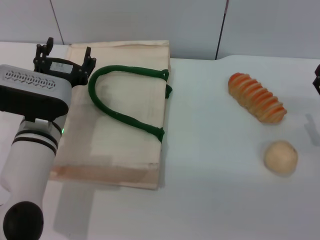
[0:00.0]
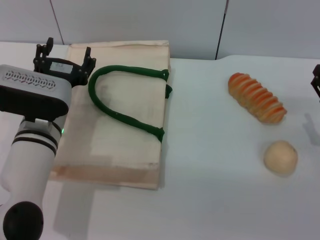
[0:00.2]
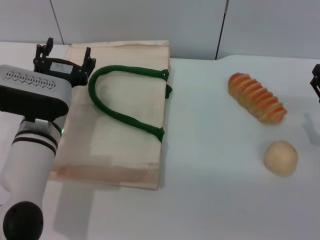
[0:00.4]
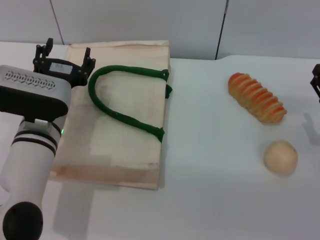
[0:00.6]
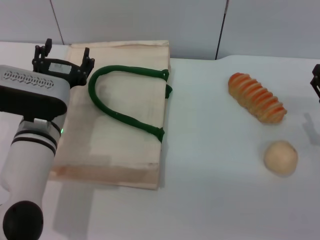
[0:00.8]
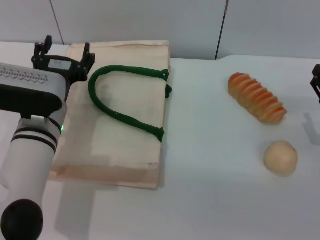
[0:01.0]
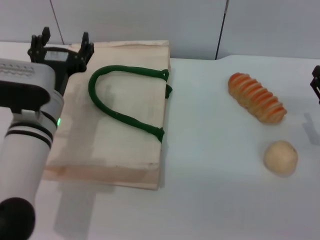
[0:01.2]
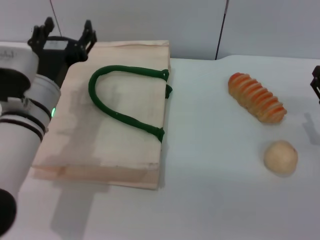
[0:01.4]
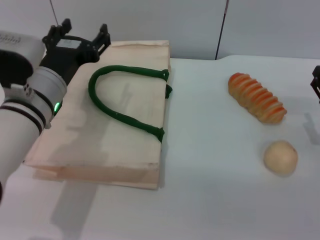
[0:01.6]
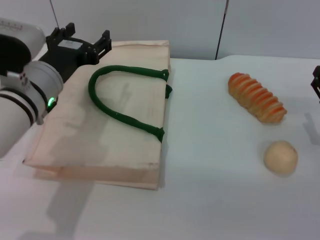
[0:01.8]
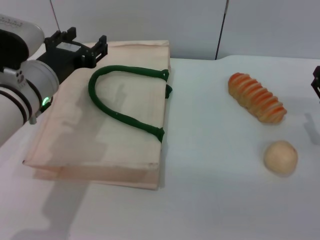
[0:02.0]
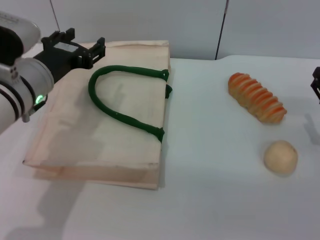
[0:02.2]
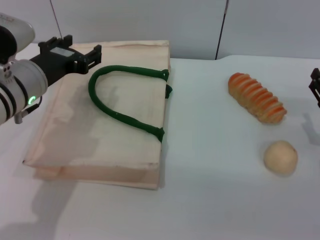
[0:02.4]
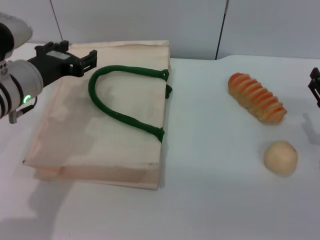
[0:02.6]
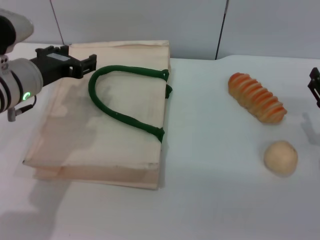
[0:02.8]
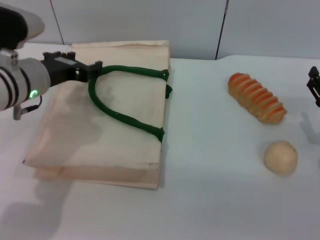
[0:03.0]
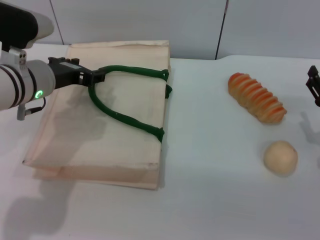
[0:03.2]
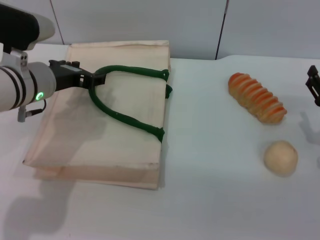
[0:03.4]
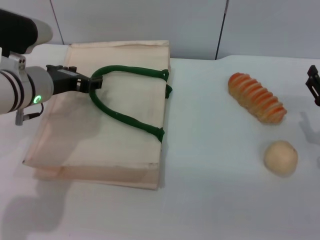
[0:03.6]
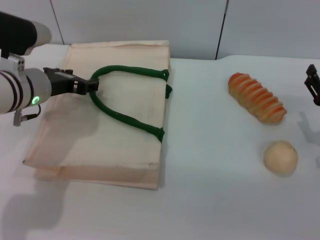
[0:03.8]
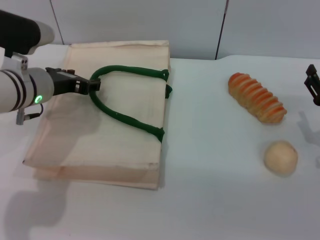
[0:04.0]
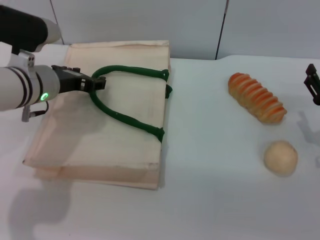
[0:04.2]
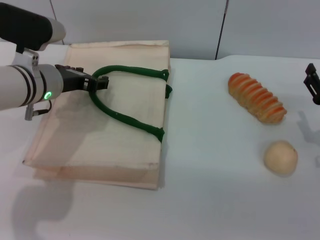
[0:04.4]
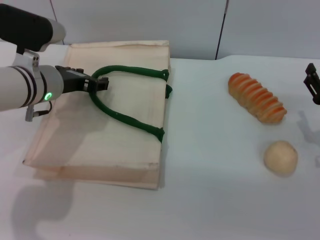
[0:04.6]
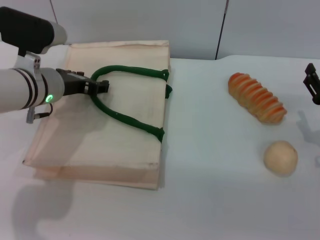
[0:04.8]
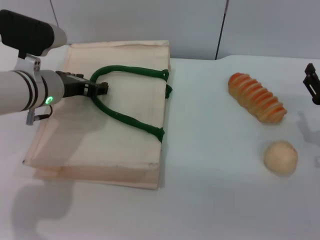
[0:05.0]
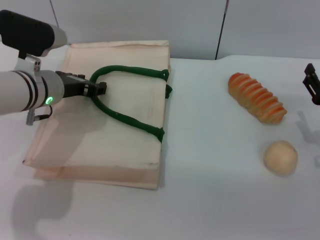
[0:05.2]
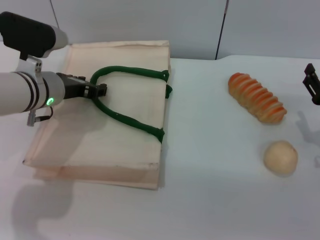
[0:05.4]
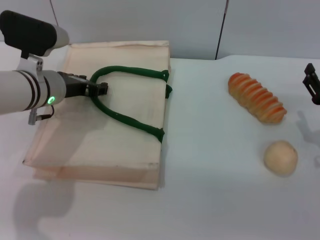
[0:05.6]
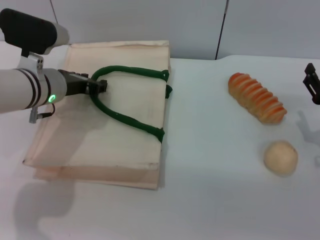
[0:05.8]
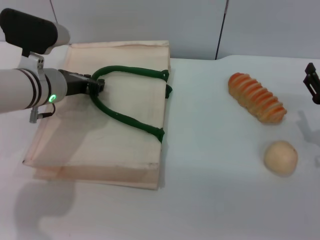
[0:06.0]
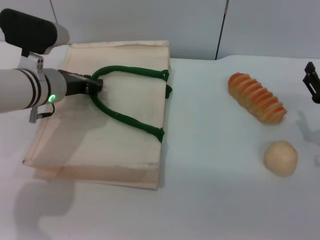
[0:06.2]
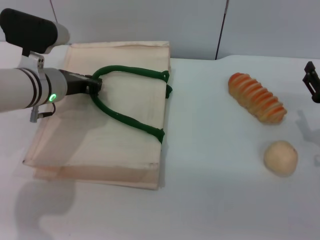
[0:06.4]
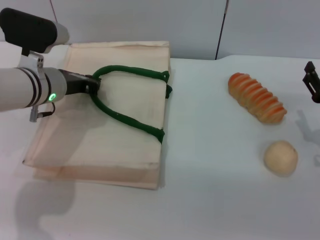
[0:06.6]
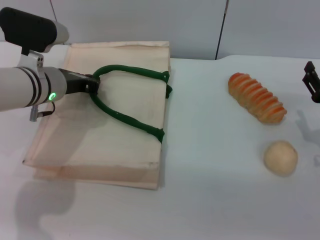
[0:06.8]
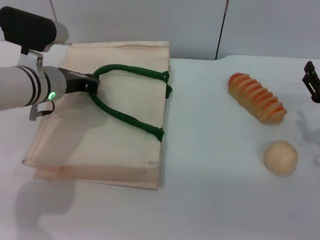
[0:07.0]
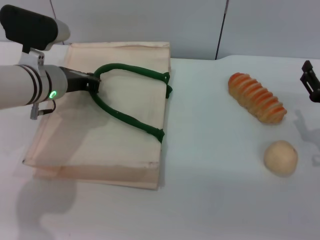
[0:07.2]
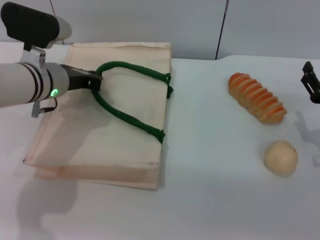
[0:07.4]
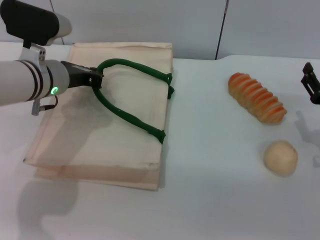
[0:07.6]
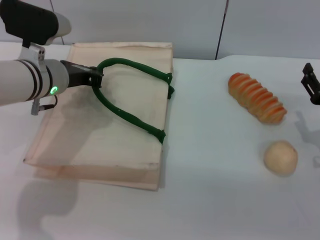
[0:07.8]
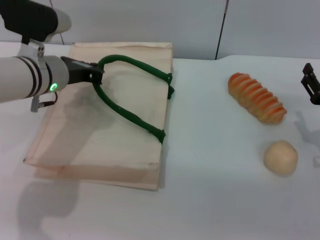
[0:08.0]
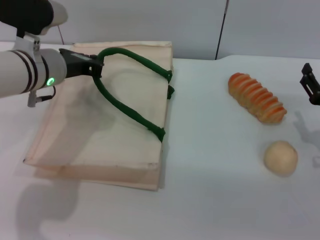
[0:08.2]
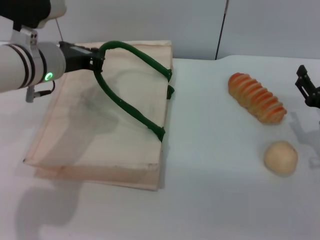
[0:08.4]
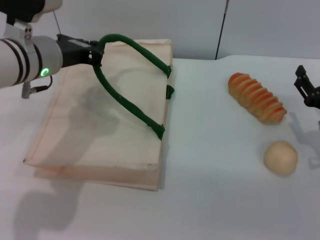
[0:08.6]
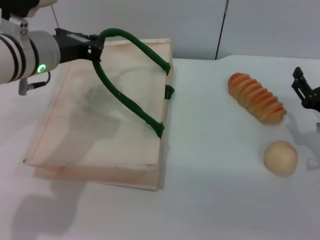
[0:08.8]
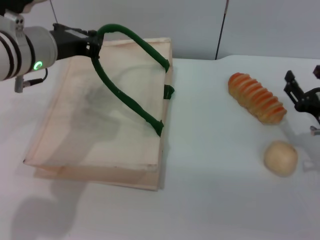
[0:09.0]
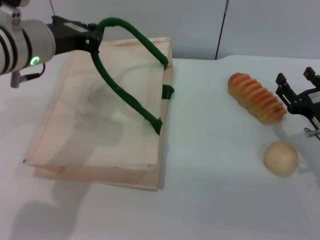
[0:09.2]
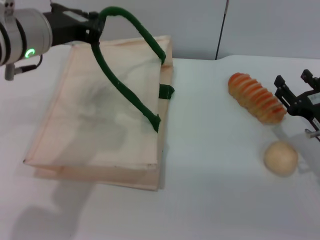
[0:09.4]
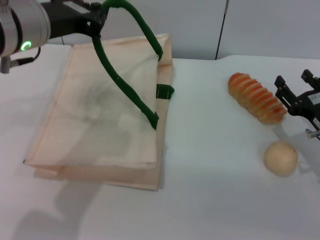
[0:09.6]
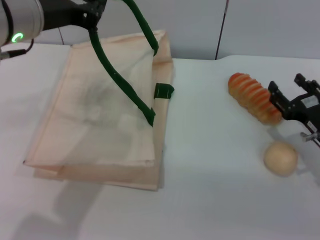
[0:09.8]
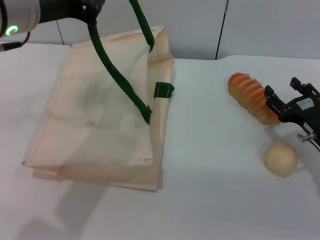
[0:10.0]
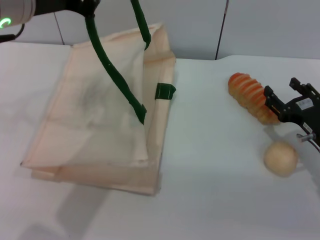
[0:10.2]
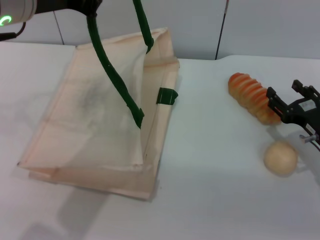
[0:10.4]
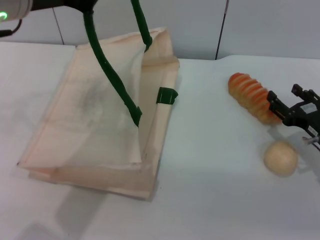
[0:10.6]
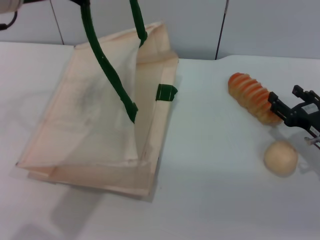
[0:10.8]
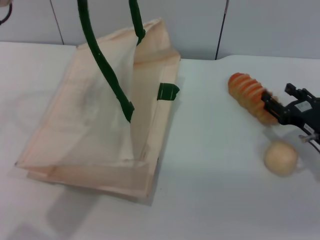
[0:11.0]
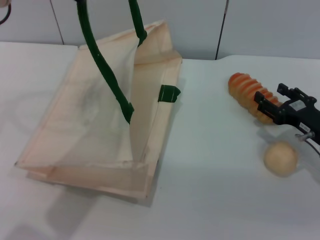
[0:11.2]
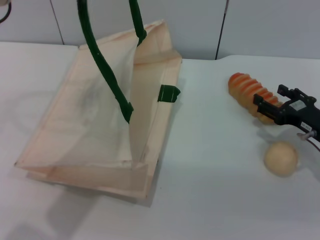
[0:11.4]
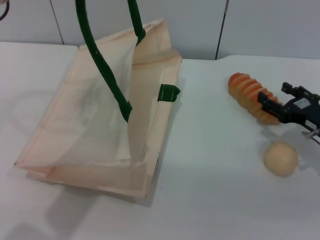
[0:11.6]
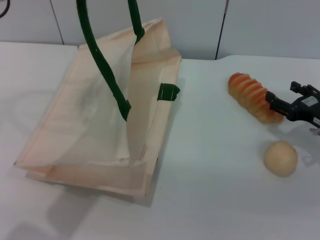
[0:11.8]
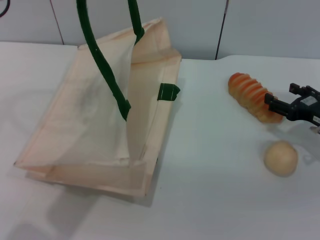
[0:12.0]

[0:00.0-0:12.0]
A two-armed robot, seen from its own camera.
Task of the whole recording: pick up the bread and egg yolk pastry from the table and place it in the white handbag.
Step, 0:00.0 to 0:07.8: Lift the woven bag with the left gripper to open it.
0:00.0 to 0:01.6: The left gripper shifts about 5 cm upward.
0:01.6 to 0:03.0: The left gripper moves some 5 cm.
0:03.0 to 0:04.4: The grippers stay close to where they were, moving slightly.
0:04.4 to 0:06.0: Both grippers stay about where they are.
0:06.0 to 0:07.6: The left gripper closes its fingers.
0:07.6 to 0:09.0: The left gripper is displaced upward by about 5 cm.
0:09.0 to 0:10.4: The left gripper heads upward and backward, covering roughly 10 cm.
0:10.4 to 0:12.0: The right gripper shifts by some 5 cm.

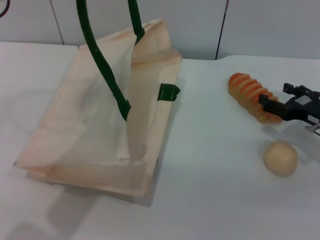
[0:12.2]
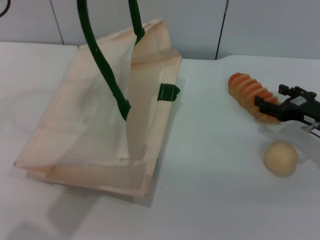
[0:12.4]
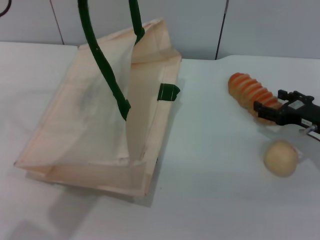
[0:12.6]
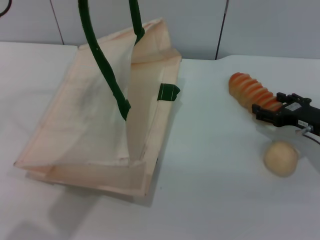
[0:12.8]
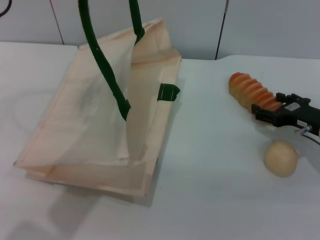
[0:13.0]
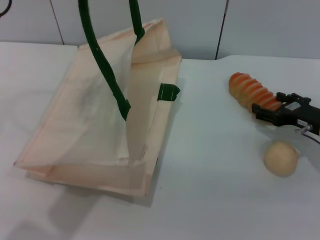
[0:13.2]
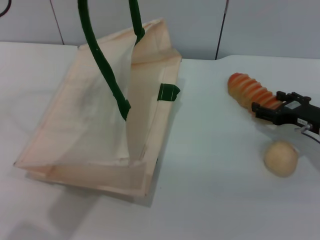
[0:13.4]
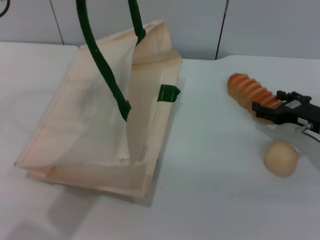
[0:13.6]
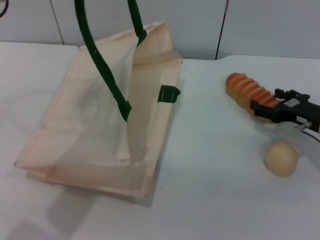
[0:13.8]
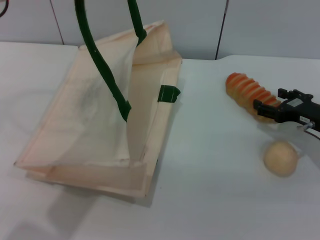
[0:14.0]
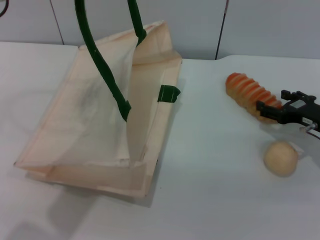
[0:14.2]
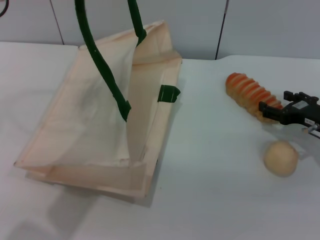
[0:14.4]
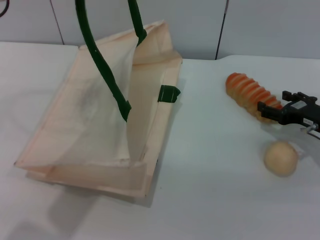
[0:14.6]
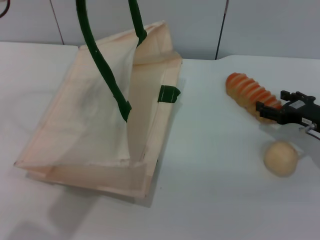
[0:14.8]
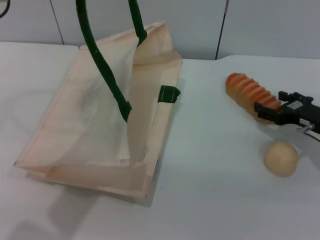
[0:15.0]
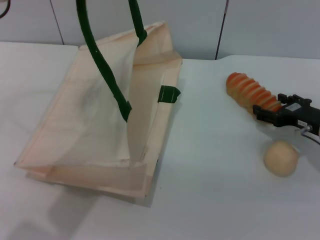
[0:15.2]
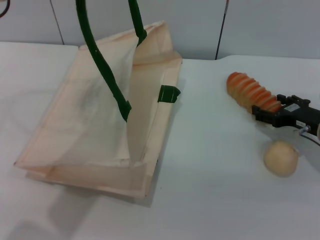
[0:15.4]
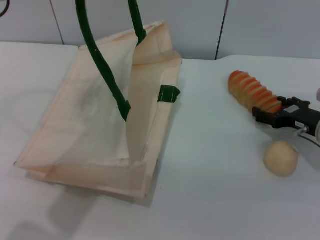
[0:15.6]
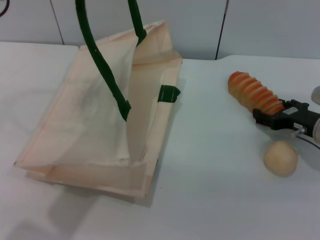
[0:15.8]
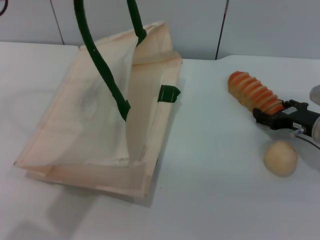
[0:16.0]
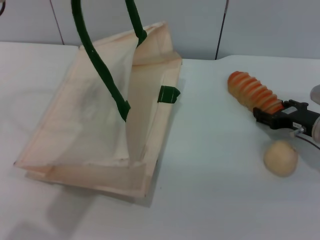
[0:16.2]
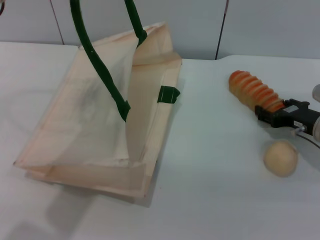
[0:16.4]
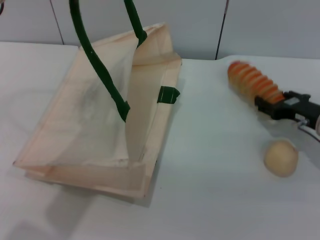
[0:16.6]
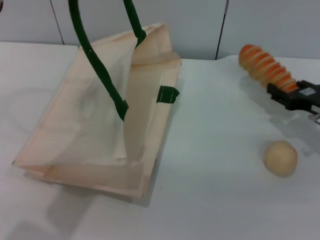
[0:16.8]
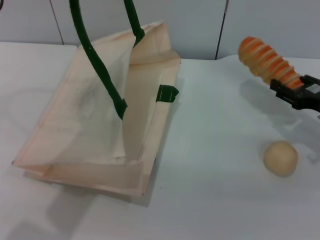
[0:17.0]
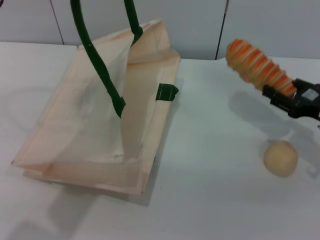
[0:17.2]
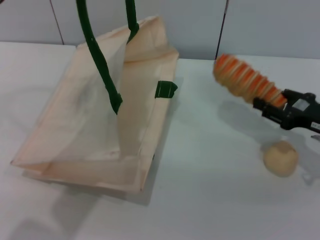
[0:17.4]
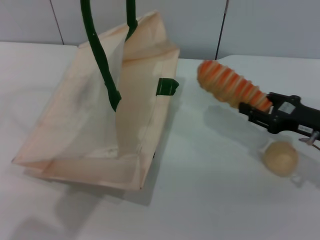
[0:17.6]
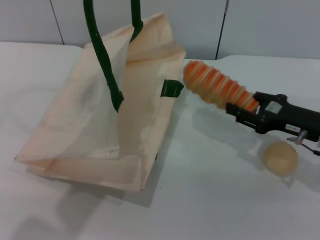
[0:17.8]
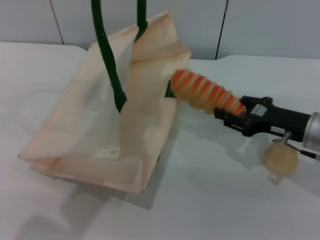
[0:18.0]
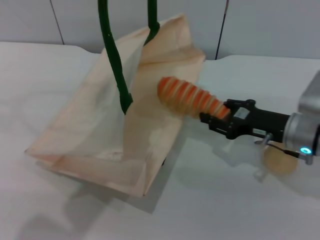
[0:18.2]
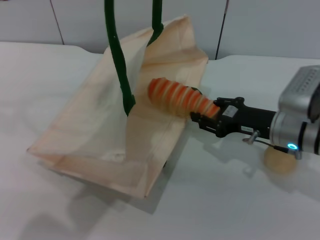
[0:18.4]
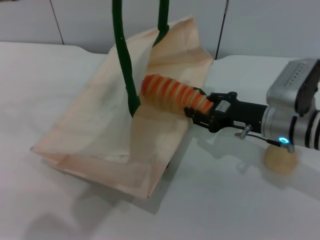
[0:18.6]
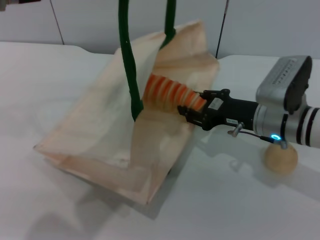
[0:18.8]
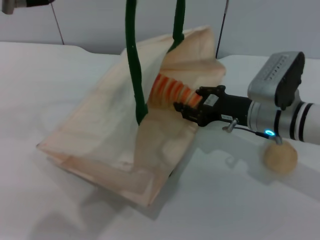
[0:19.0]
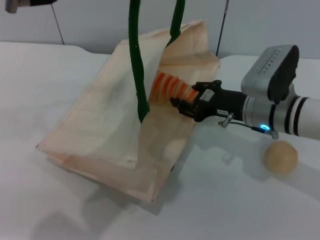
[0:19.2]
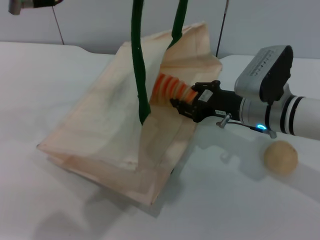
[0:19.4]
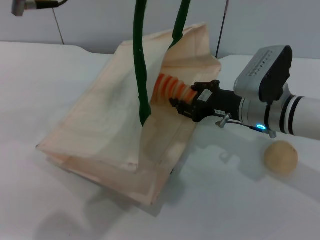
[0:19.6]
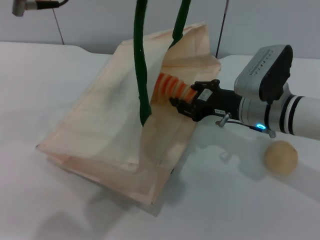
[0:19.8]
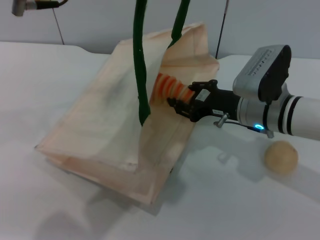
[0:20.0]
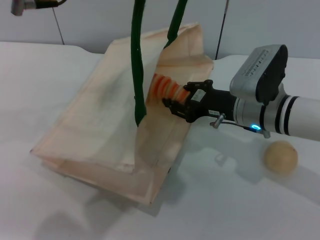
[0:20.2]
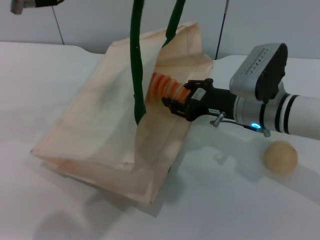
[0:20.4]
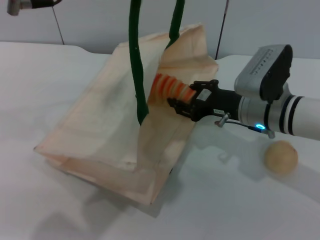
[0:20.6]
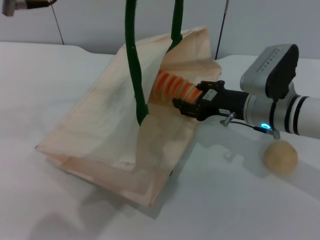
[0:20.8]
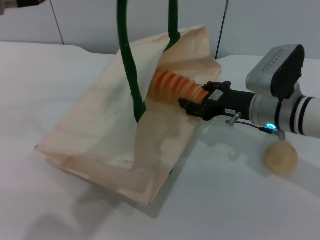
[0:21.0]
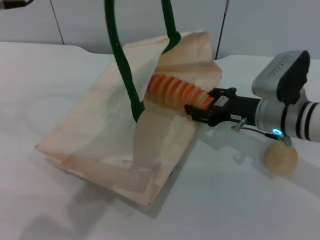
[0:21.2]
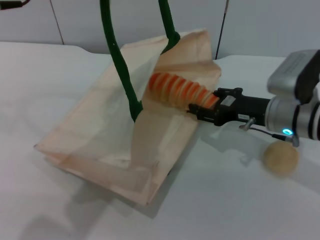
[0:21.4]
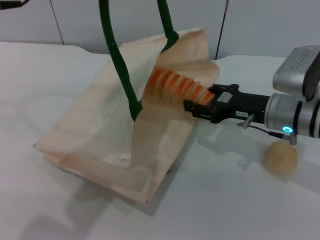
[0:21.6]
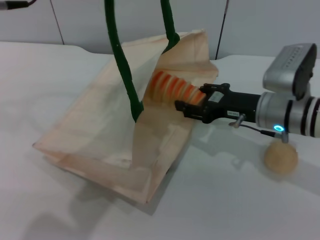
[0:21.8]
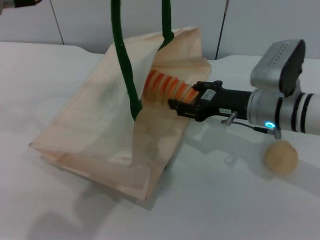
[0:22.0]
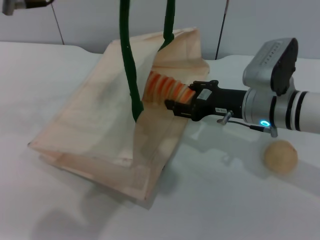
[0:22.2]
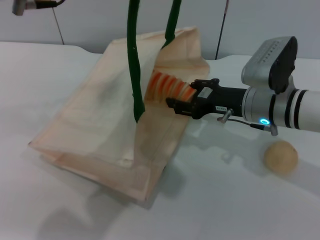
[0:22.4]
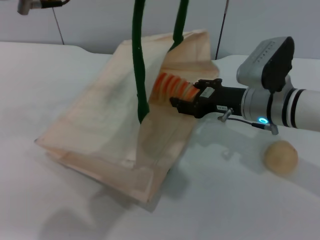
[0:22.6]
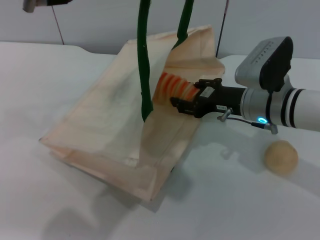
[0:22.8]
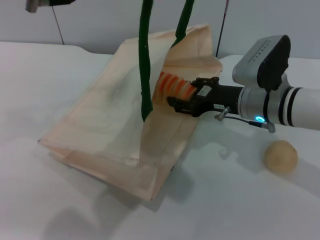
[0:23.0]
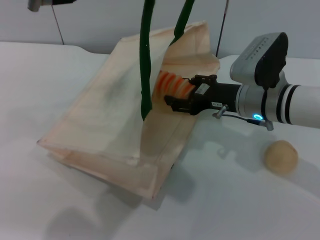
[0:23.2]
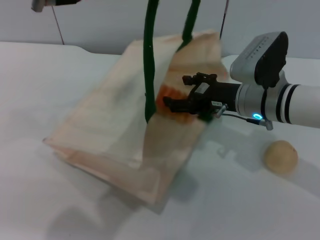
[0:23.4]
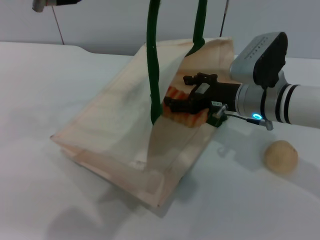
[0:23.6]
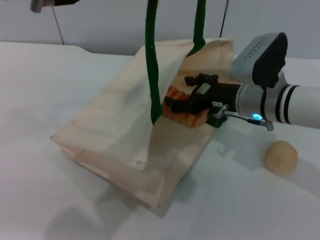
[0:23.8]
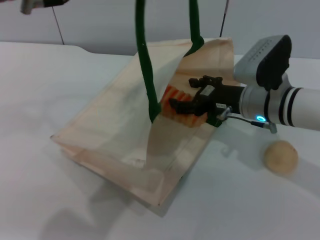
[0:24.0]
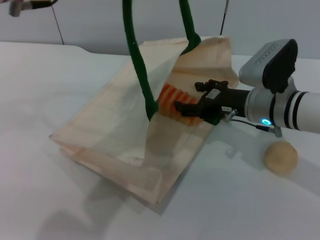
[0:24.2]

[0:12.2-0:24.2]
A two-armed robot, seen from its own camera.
Task of the whole recording: pick up the bread and egg yolk pastry from the table and place it in the white handbag.
Step, 0:12.2 to 0:17.4: Pick up the bread with the right gripper.
0:12.2 to 0:13.8: The grippers stay close to where they were, moving slightly.
0:13.8 to 0:15.2: The two grippers keep their place.
0:15.2 to 0:16.6: The right gripper closes up.
0:16.6 to 0:18.2: The right gripper is displaced to the left by roughly 5 cm, and closes its fingers.
0:18.2 to 0:19.8: The right gripper shifts about 5 cm to the left.
0:19.8 to 0:22.6: The grippers move only a little.
0:22.6 to 0:24.2: The right gripper opens up.
